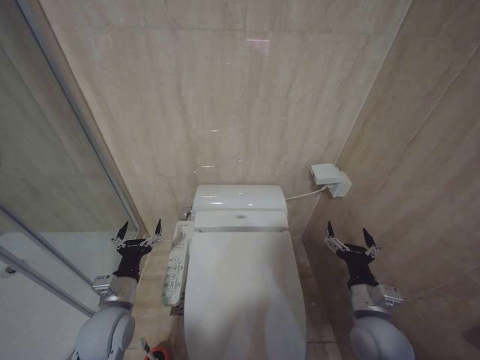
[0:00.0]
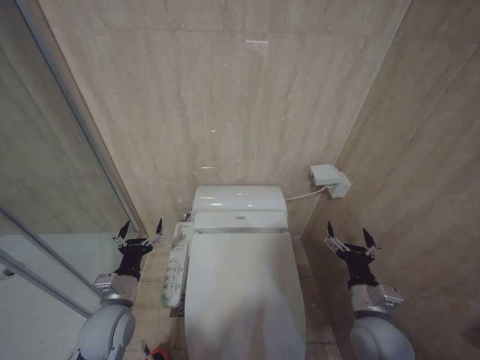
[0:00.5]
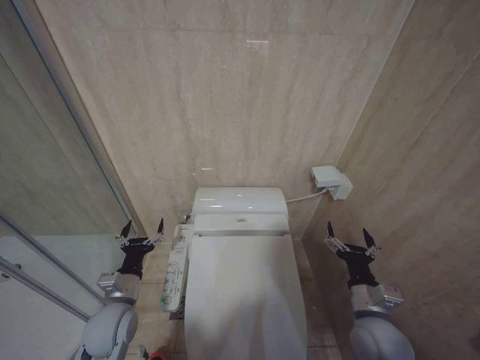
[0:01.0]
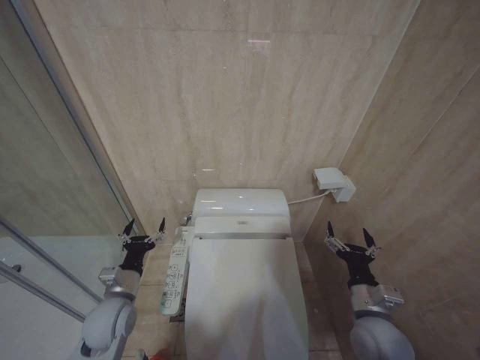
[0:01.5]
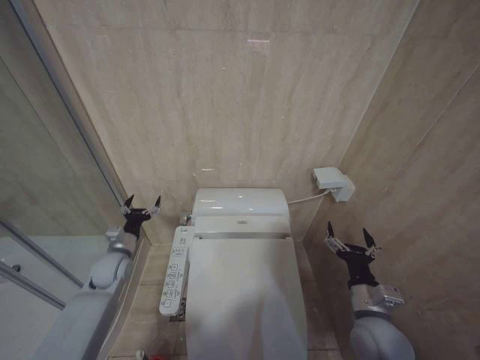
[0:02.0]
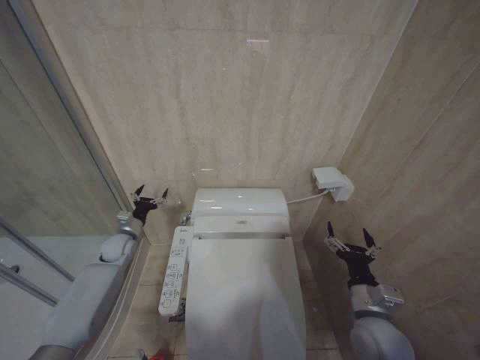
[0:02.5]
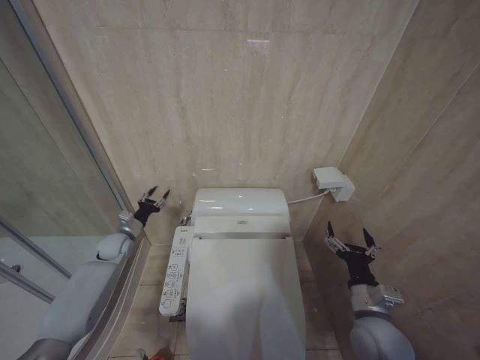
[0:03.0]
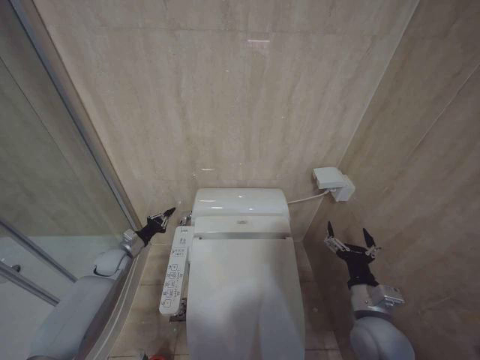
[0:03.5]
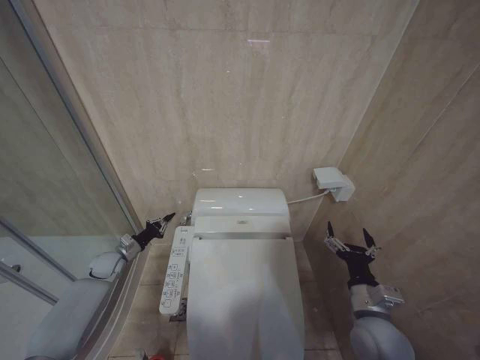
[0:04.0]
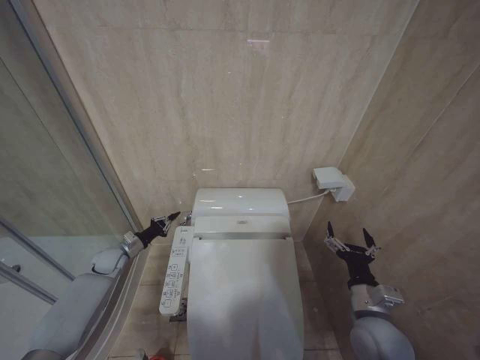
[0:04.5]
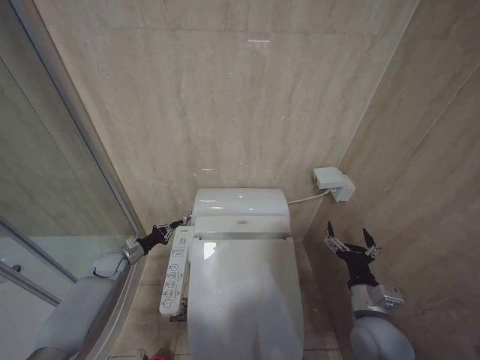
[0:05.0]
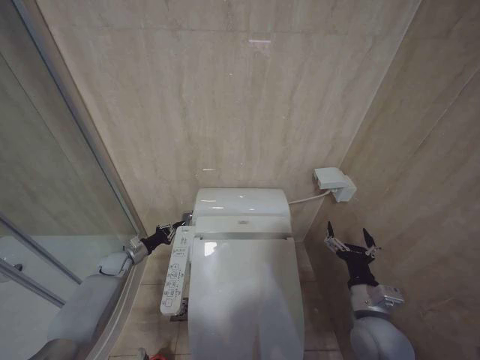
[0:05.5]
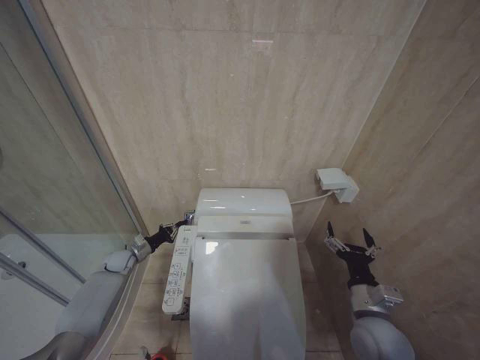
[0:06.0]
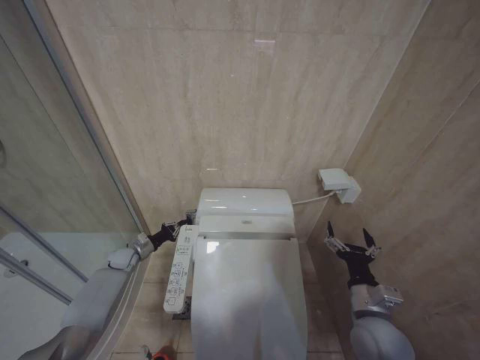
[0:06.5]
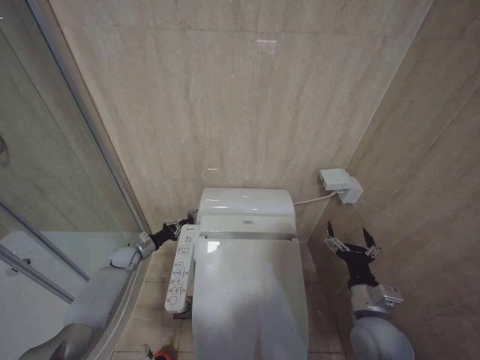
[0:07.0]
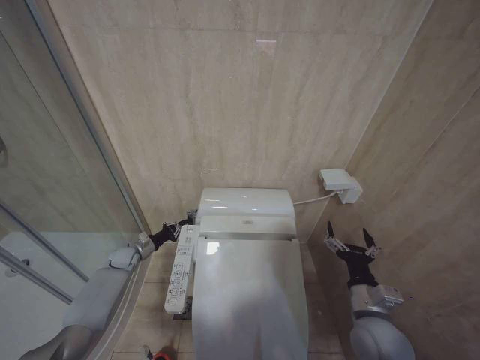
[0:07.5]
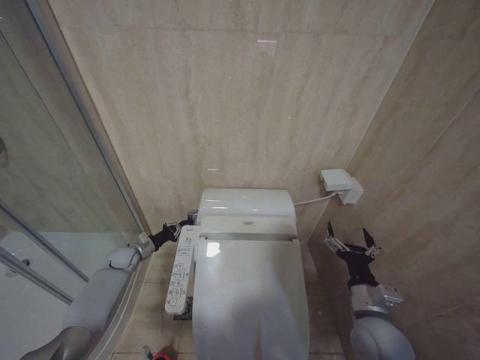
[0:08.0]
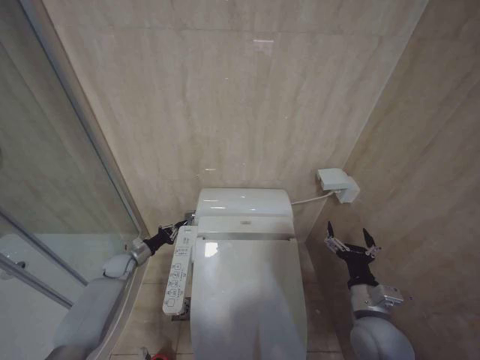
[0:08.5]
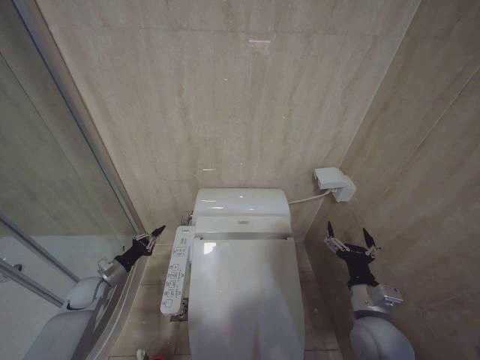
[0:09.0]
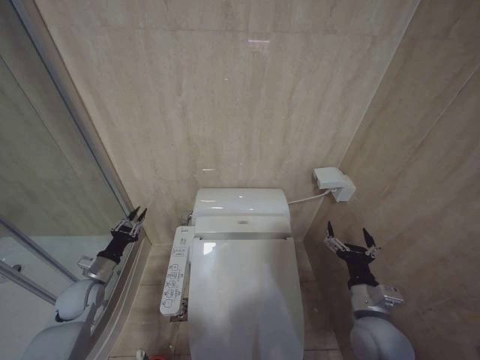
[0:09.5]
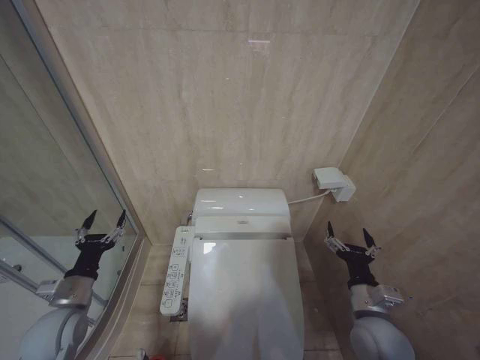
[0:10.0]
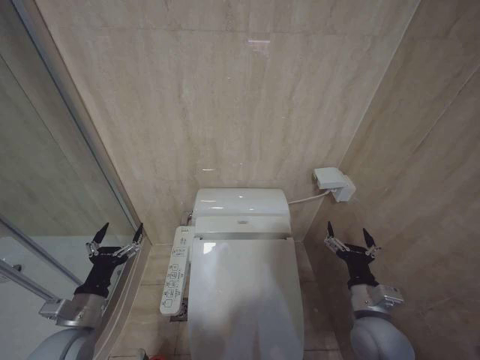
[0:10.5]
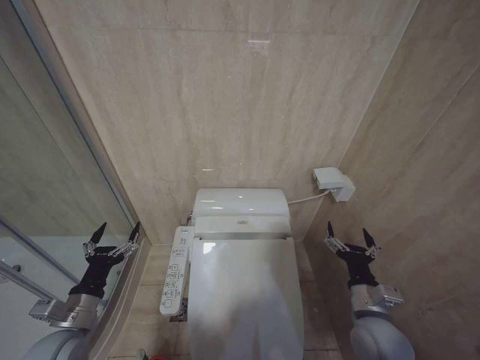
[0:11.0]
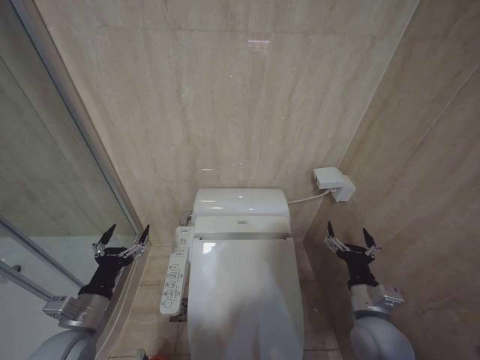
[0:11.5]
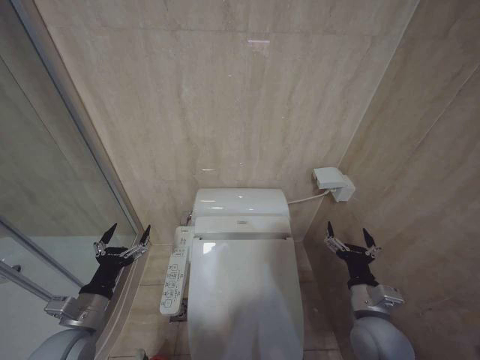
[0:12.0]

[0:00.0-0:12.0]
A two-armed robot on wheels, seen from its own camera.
Task of the whole recording: Open the toilet lid, clean the toilet bowl with a toilet brush, close the toilet lid, and flush.
0:00.0 to 0:02.0: The left gripper heads forward and to the left, covering some 15 cm.
0:02.0 to 0:04.0: The left gripper goes some 10 cm forward, to the left and downward, and closes.
0:04.0 to 0:06.0: The grippers stay close to where they were, moving slightly.
0:06.0 to 0:08.0: The grippers make only small movements.
0:08.0 to 0:10.0: The left gripper is displaced backward and upward by roughly 25 cm, and opens its fingers.
0:10.0 to 0:12.0: The left gripper travels backward and to the right by about 10 cm.

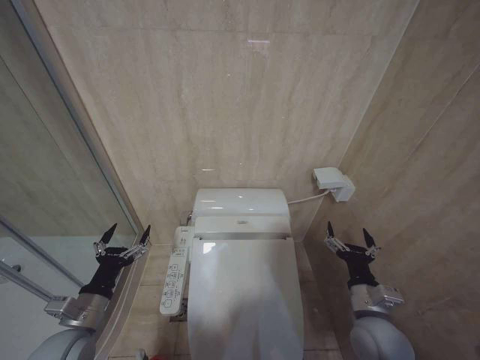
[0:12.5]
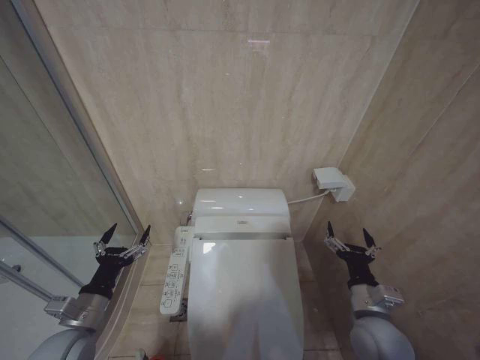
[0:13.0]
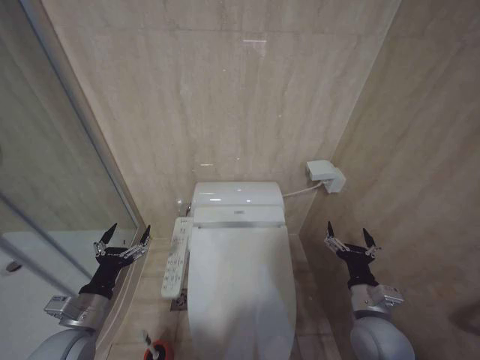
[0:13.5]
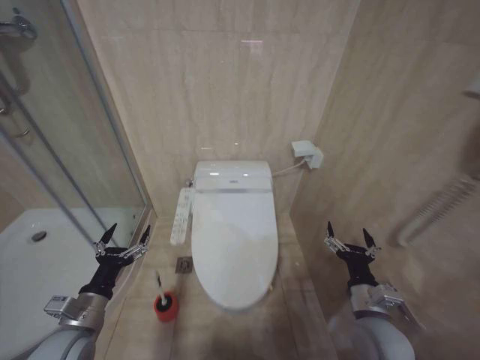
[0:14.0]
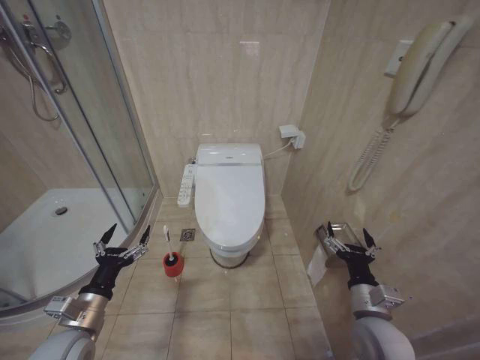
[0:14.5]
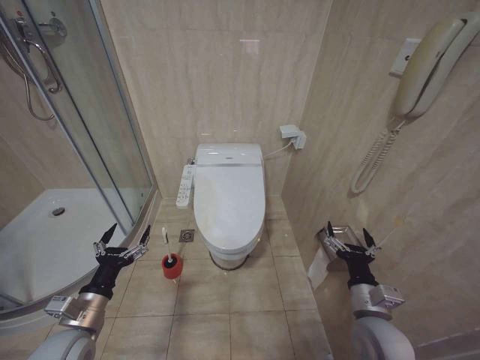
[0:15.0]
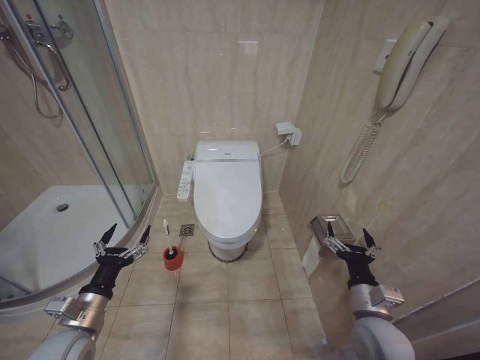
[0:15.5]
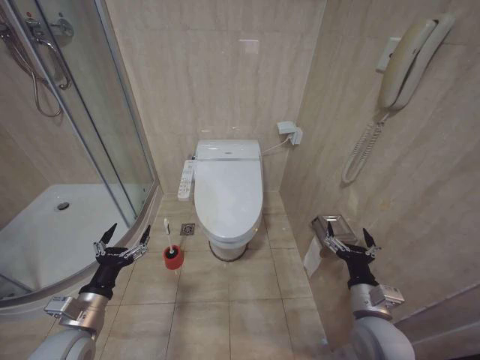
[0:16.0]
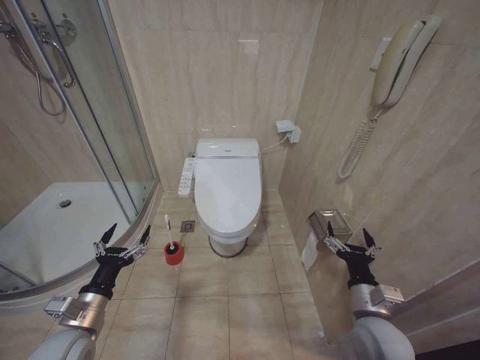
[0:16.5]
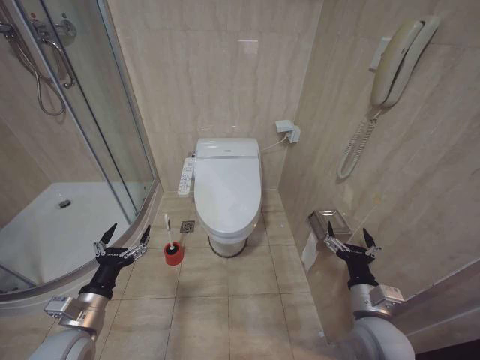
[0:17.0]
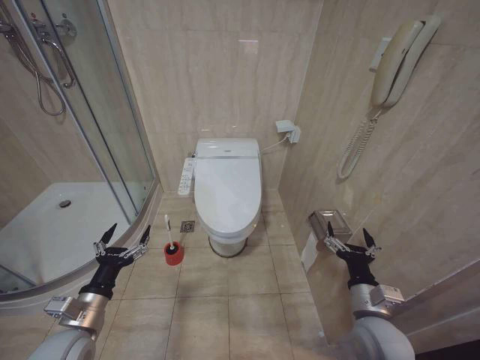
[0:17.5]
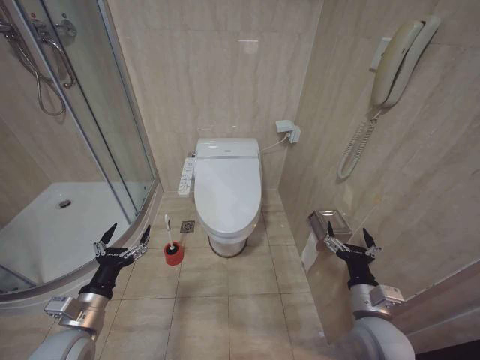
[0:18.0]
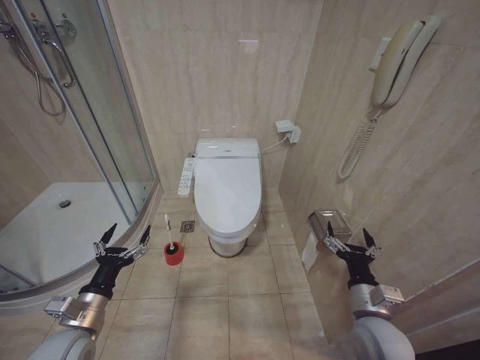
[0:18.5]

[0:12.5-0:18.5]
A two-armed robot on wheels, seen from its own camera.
Task of the whole recording: Open the toilet lid, clean the toilet bowl with a toilet brush, close the toilet lid, and flush.
0:14.5 to 0:18.5: Both grippers stay about where they are.
